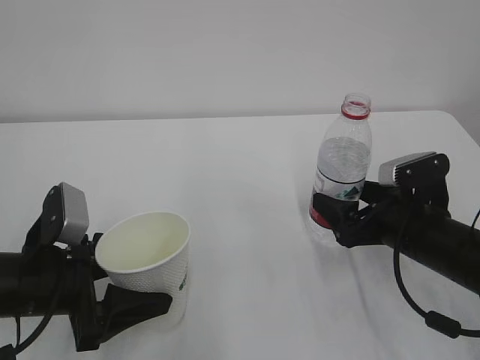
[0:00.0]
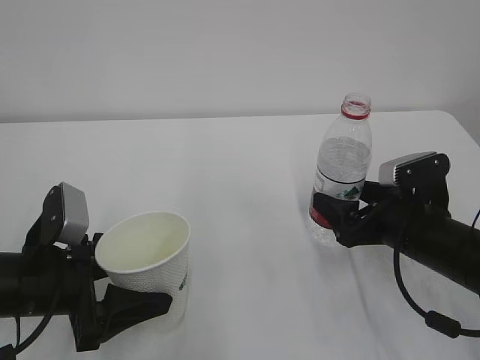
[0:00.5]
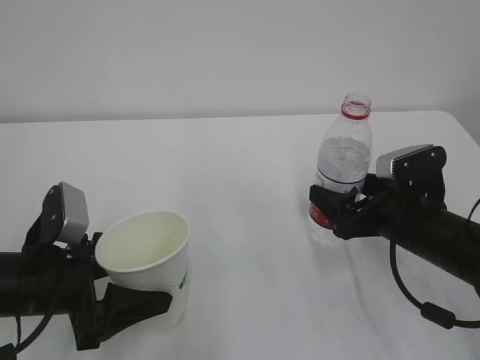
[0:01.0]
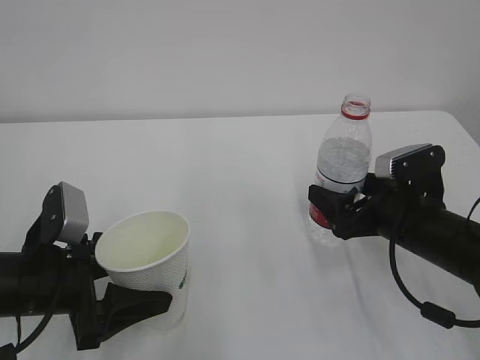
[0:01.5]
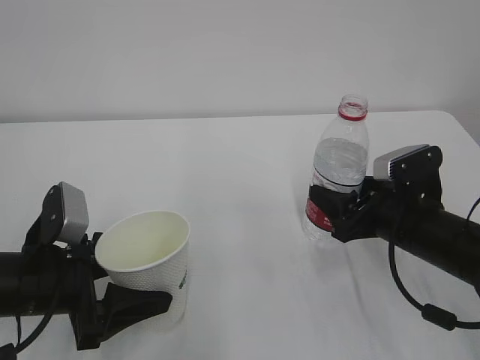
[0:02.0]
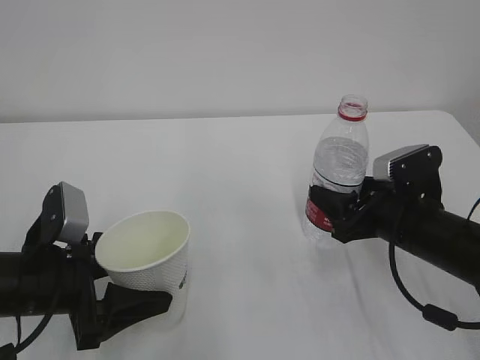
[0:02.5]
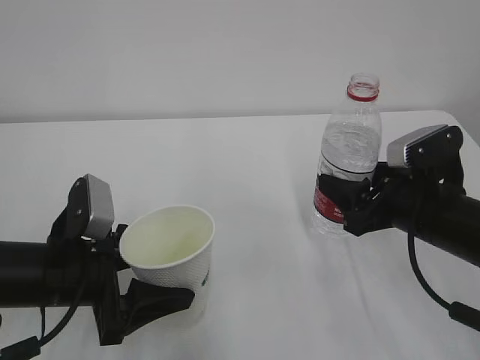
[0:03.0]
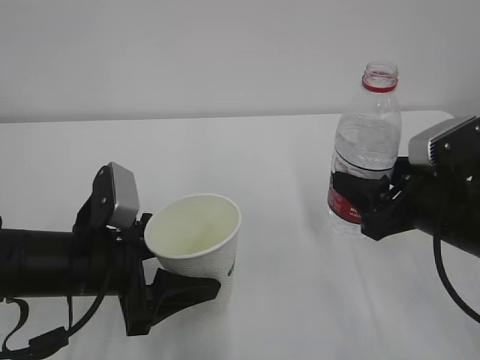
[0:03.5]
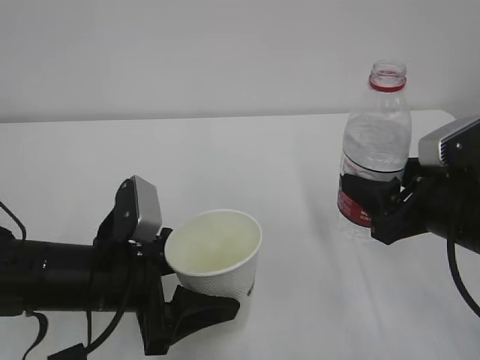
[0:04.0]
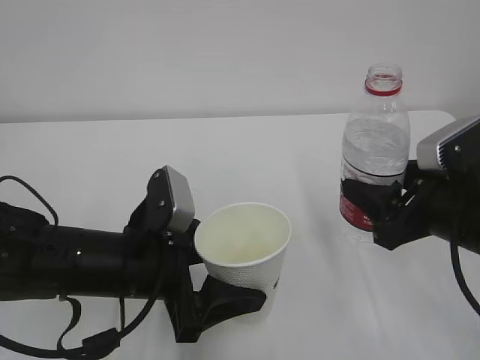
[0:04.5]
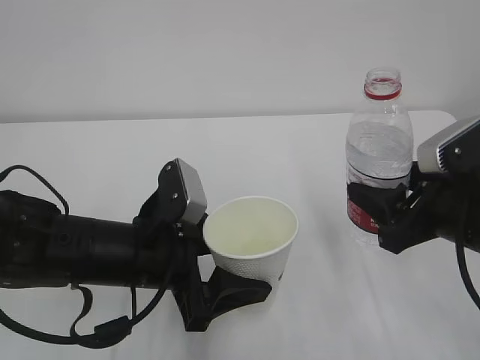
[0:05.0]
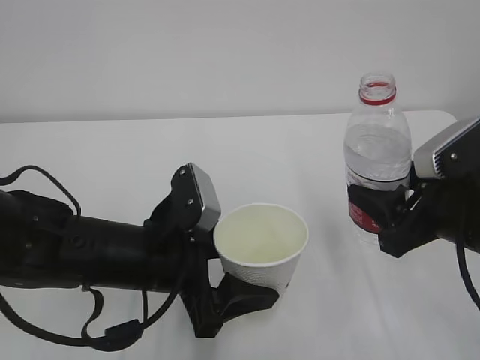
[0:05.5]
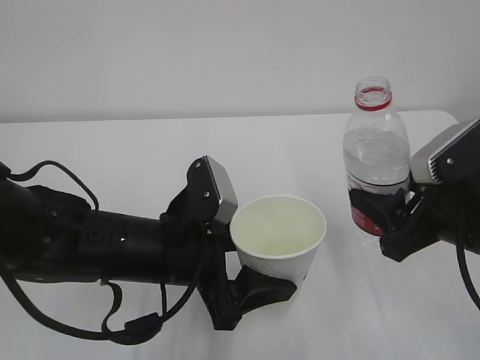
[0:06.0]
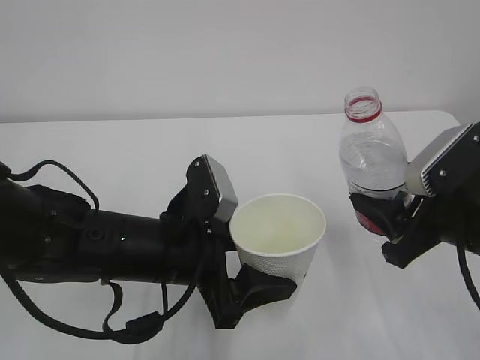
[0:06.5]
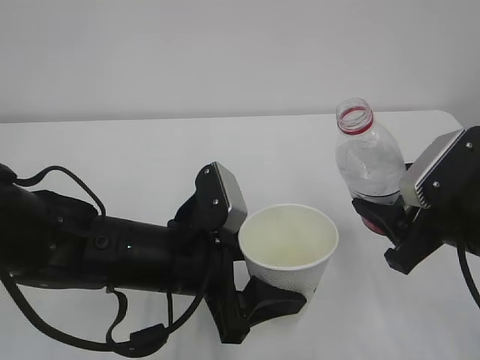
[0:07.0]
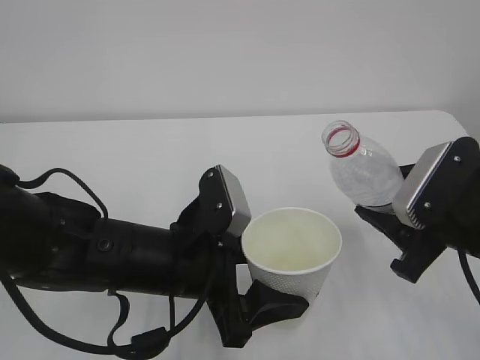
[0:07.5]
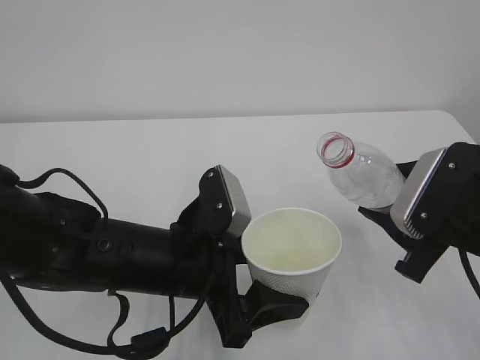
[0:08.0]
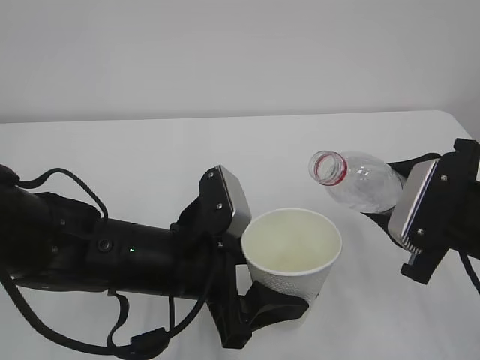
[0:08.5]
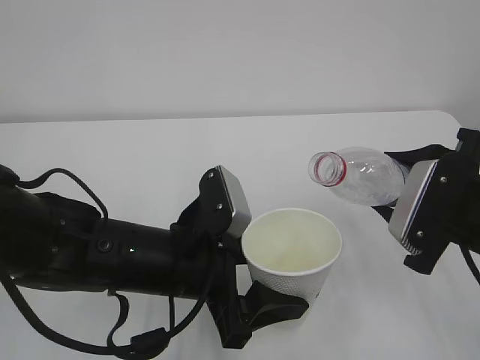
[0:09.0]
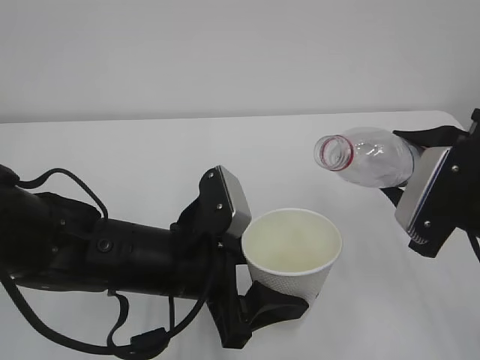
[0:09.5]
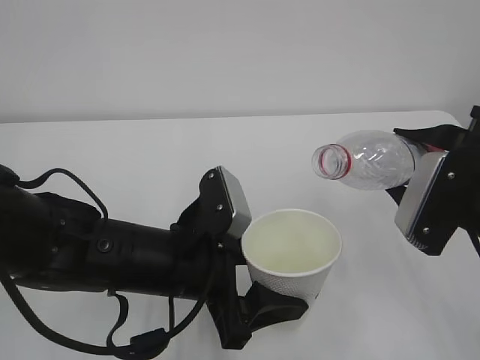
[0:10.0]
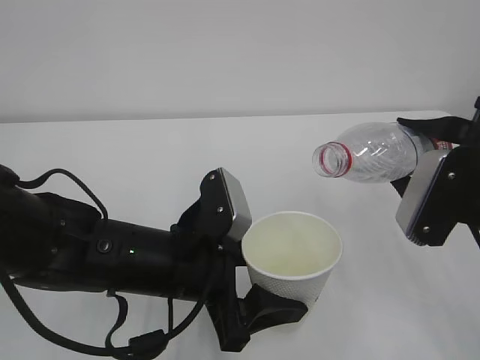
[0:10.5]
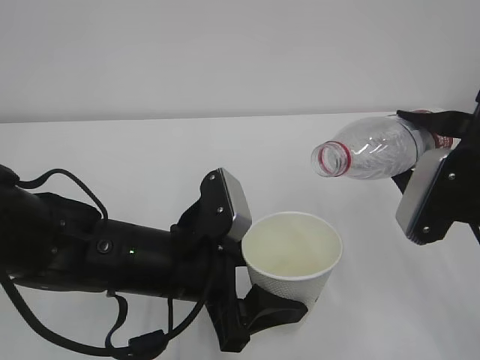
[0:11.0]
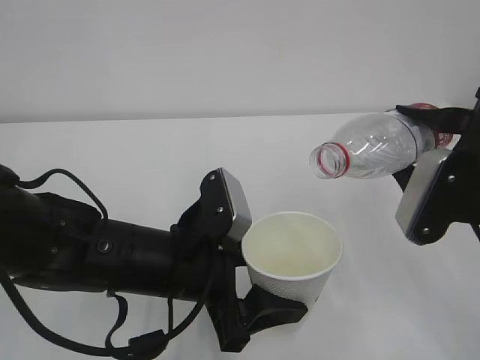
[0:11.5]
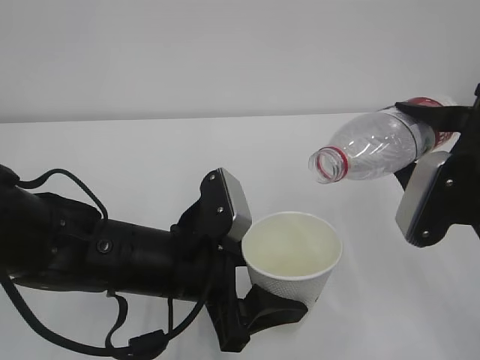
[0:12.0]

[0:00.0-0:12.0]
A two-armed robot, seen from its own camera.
0:00.0 to 0:02.0: The right gripper closes up.
0:02.0 to 0:04.0: The right gripper heads upward, covering about 5 cm; the left gripper goes roughly 5 cm to the right.
0:04.0 to 0:06.0: The left gripper is displaced to the right by some 5 cm.
0:10.0 to 0:12.0: The grippers stay close to where they were, moving slightly.

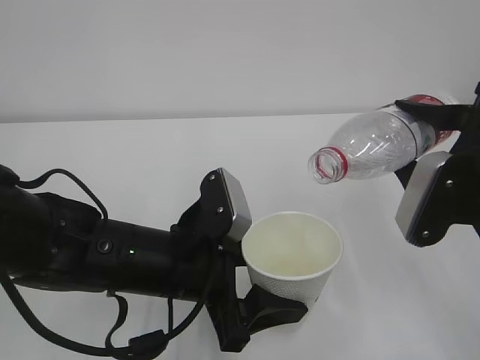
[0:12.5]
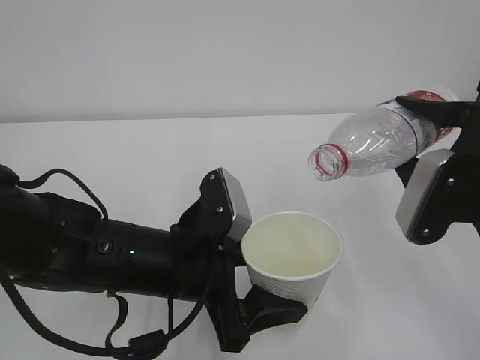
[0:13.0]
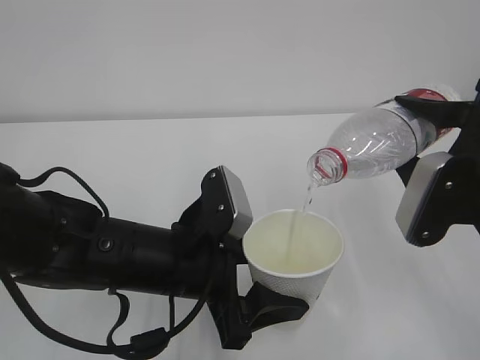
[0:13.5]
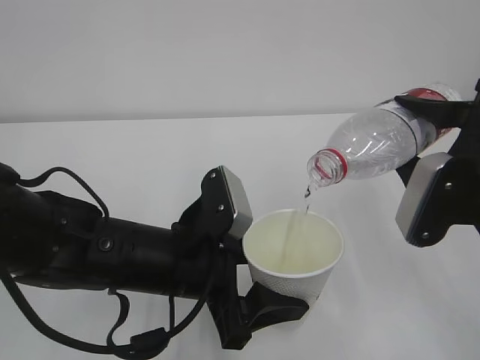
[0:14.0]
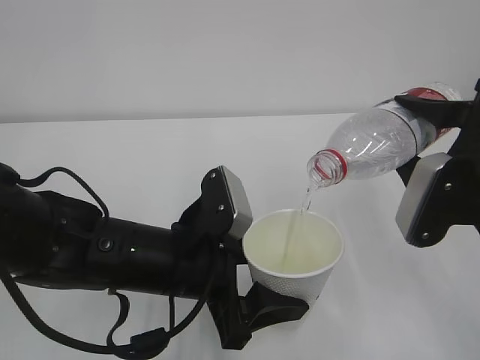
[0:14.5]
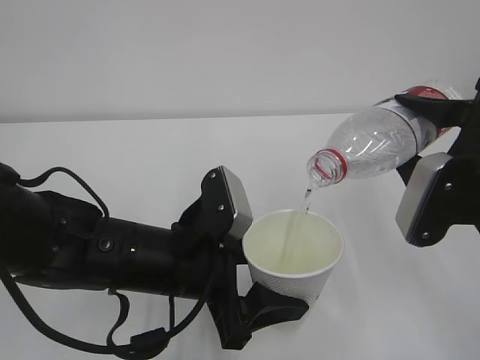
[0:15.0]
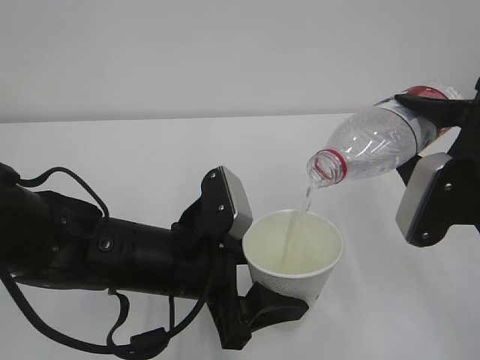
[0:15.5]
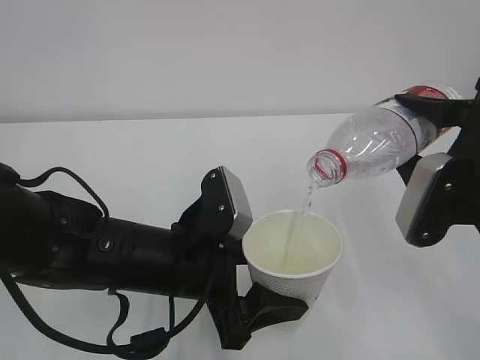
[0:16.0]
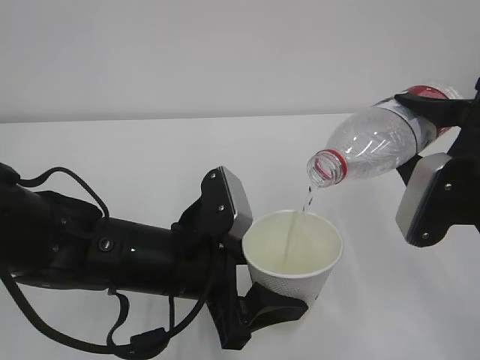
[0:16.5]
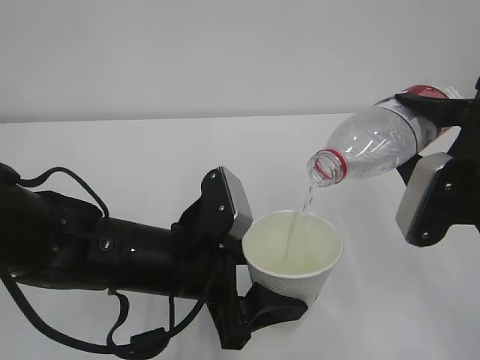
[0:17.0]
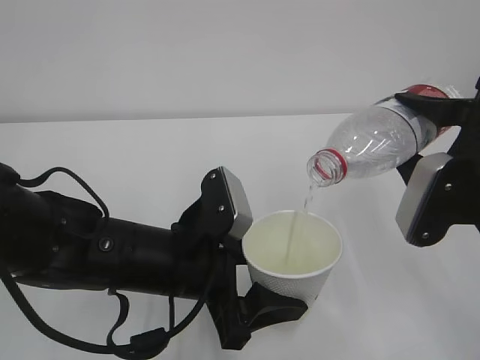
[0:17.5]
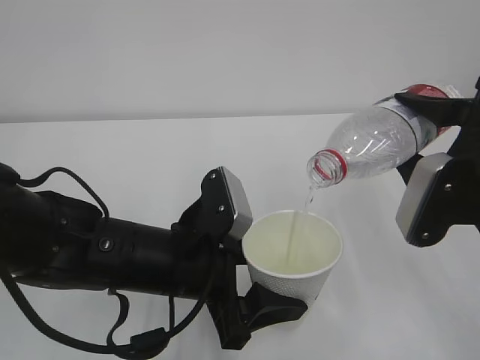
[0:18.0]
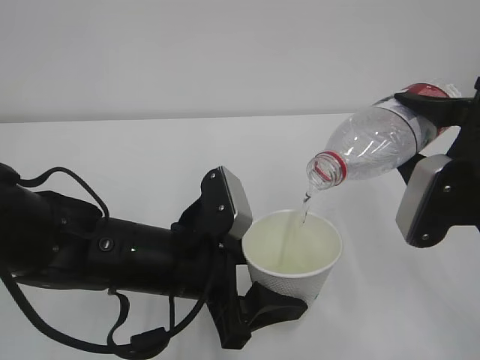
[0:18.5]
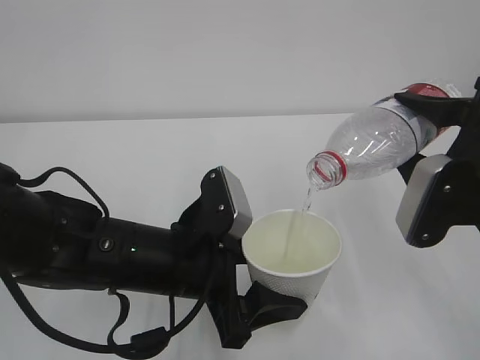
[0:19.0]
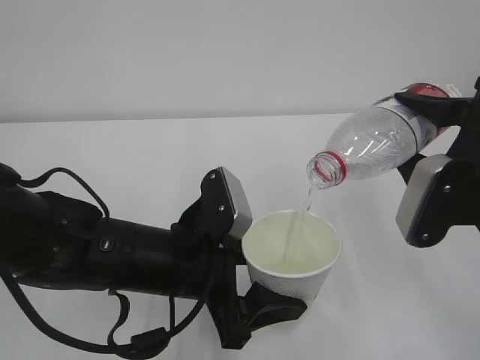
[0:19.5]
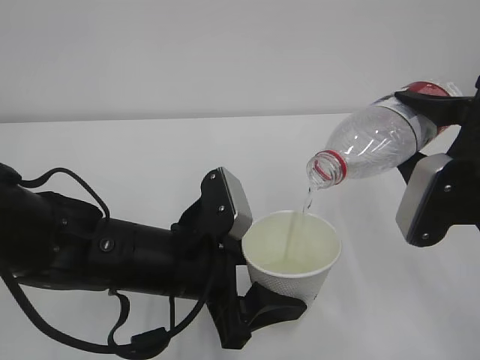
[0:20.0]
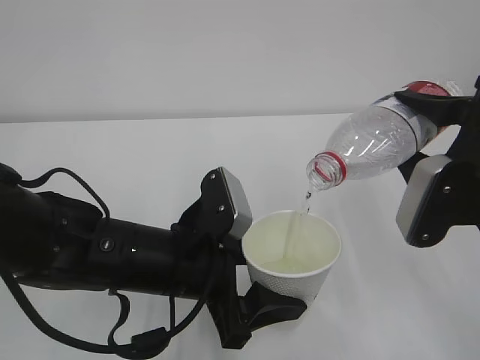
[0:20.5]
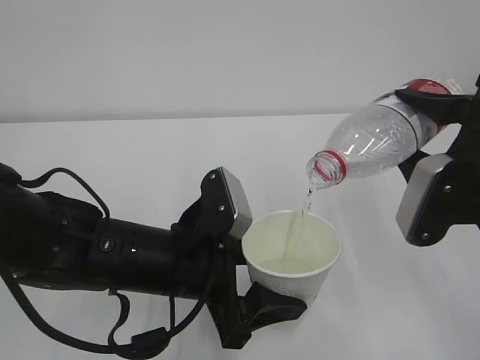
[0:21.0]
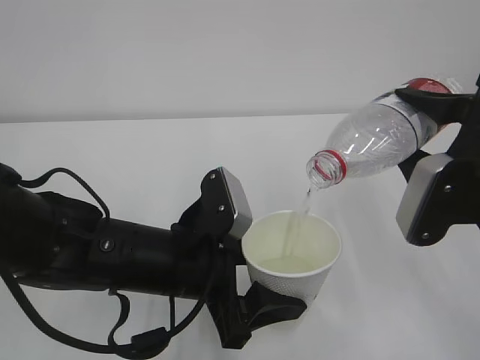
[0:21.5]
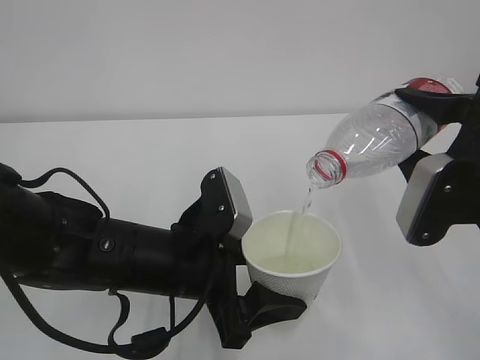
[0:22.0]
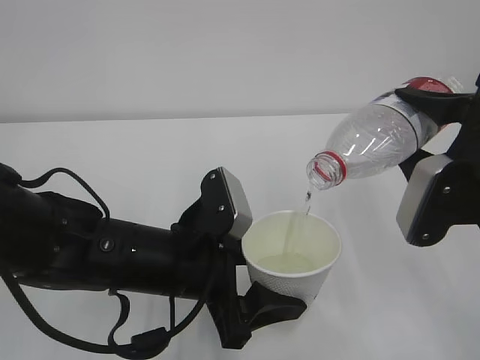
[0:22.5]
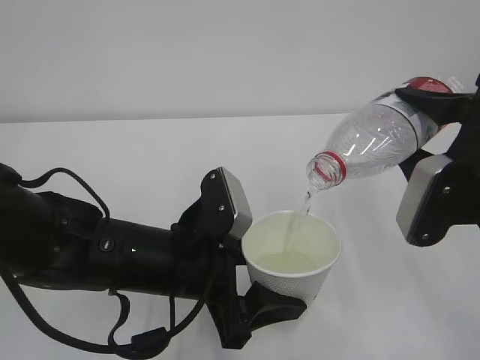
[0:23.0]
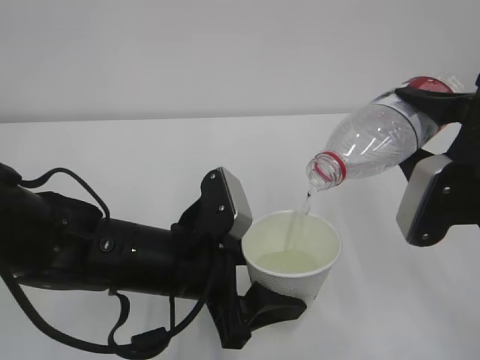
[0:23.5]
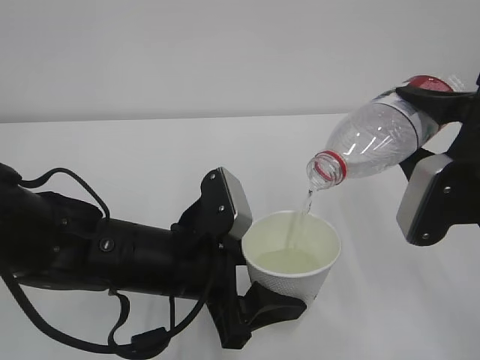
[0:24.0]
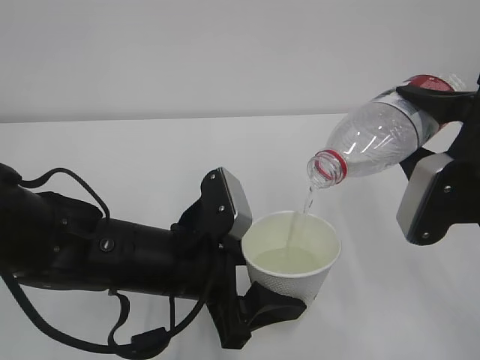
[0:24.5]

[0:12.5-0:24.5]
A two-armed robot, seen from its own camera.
0:12.5 to 0:16.5: Both grippers stay put.
0:16.5 to 0:24.5: Neither gripper changes place.

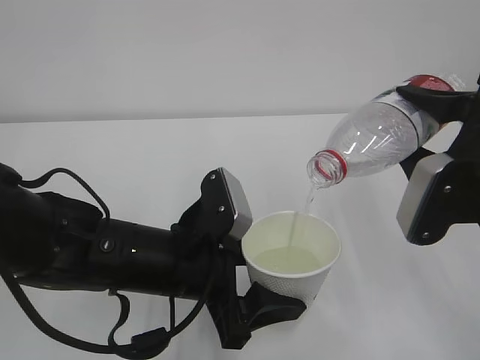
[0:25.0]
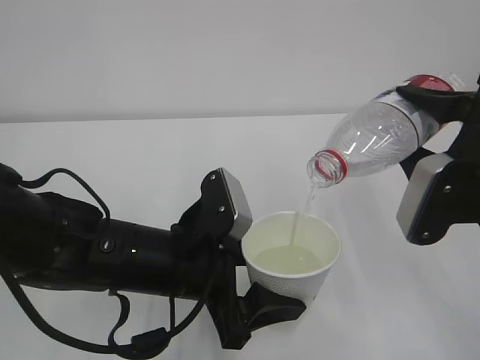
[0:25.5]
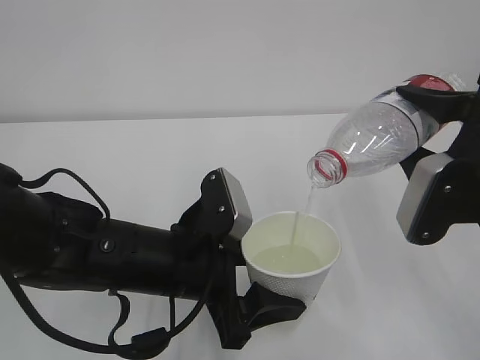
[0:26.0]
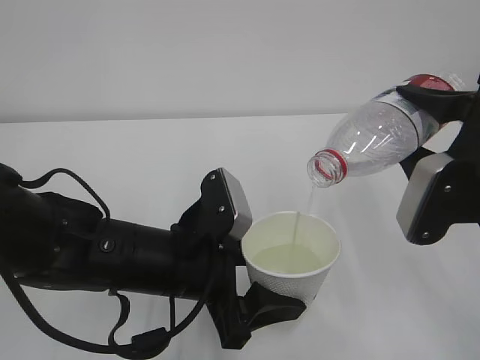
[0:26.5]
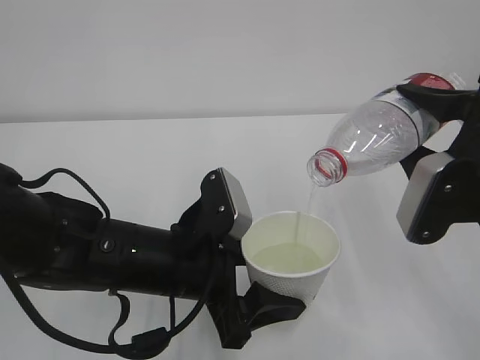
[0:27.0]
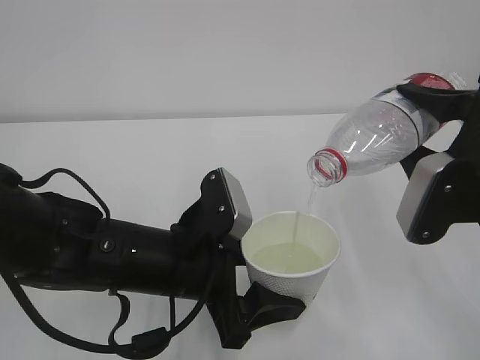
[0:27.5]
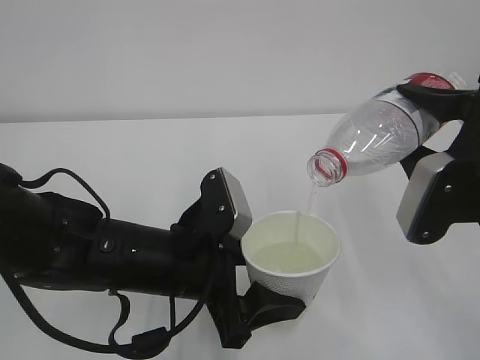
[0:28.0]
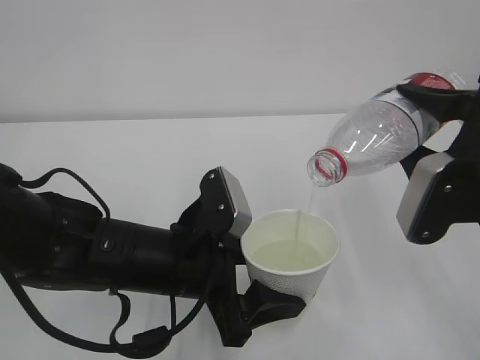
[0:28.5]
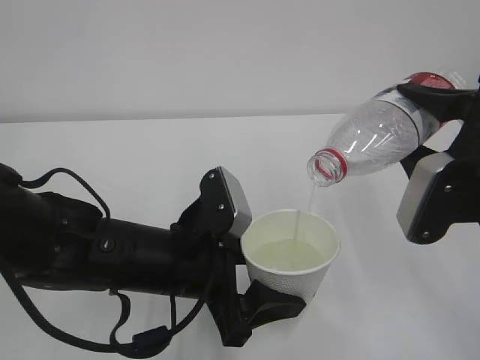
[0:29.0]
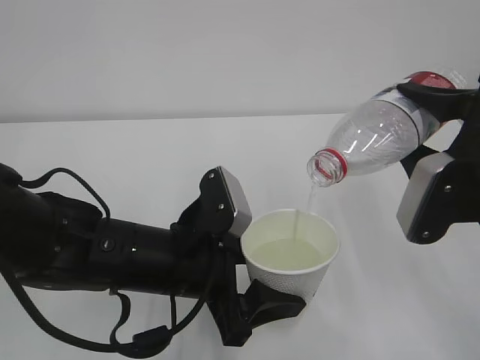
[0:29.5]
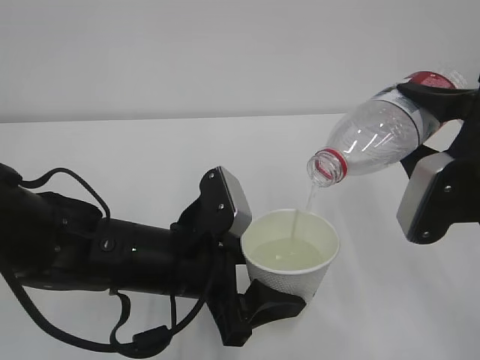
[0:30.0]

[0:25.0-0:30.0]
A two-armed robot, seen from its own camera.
0:25.0 to 0:30.0: Both grippers stay about where they are.
